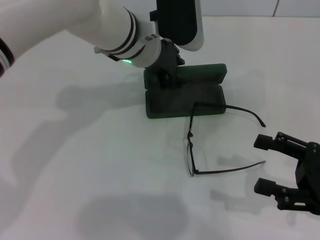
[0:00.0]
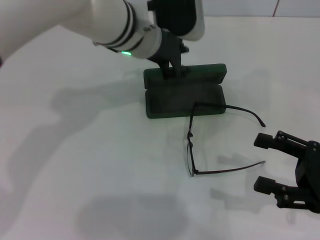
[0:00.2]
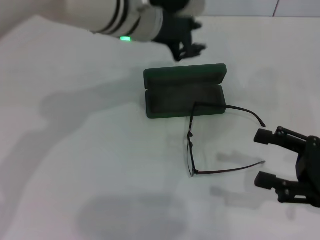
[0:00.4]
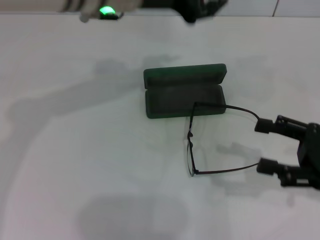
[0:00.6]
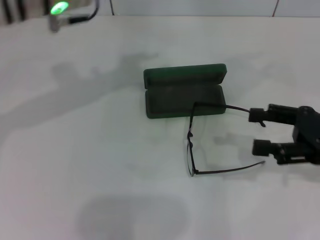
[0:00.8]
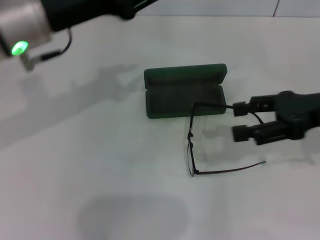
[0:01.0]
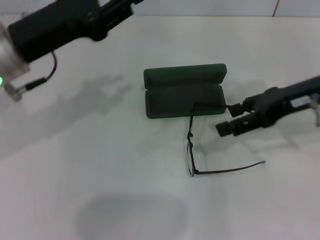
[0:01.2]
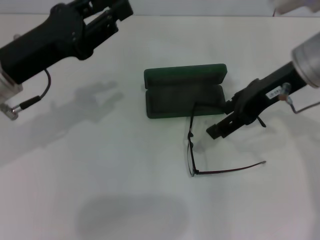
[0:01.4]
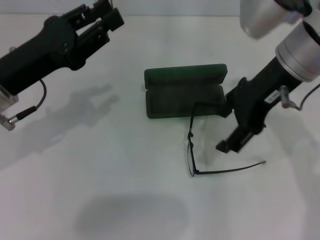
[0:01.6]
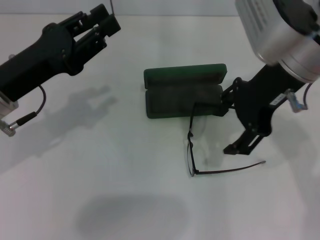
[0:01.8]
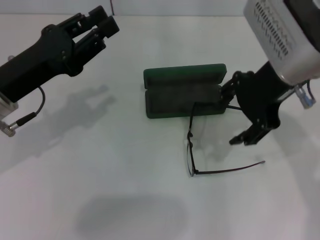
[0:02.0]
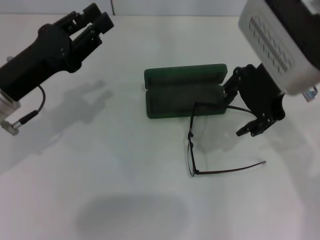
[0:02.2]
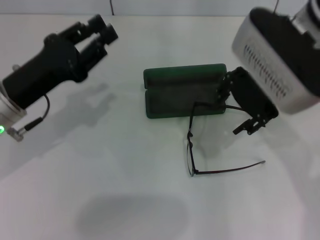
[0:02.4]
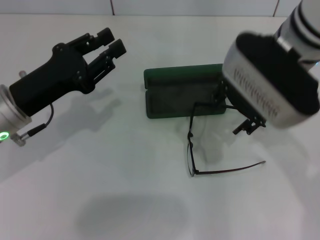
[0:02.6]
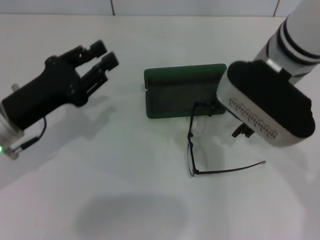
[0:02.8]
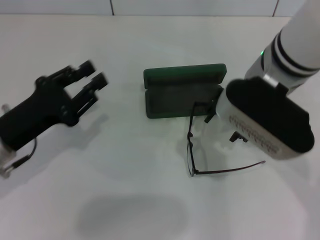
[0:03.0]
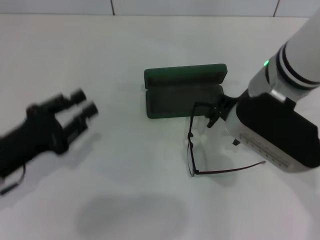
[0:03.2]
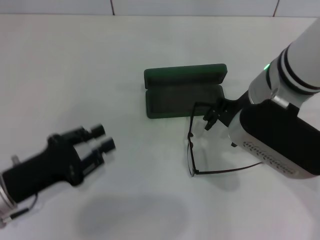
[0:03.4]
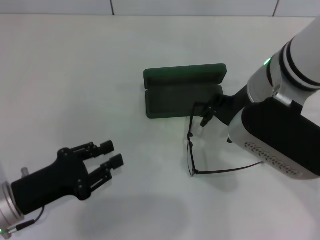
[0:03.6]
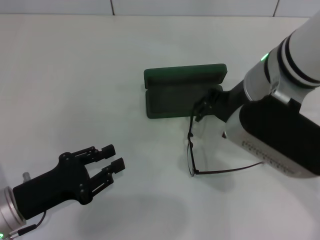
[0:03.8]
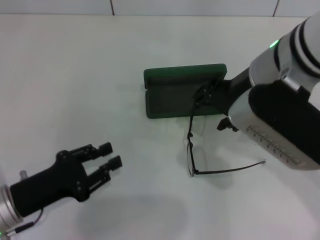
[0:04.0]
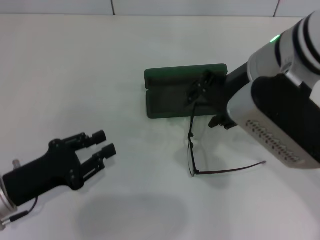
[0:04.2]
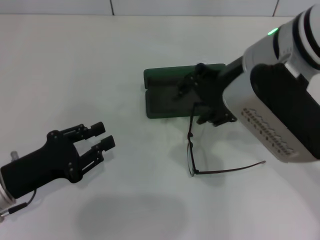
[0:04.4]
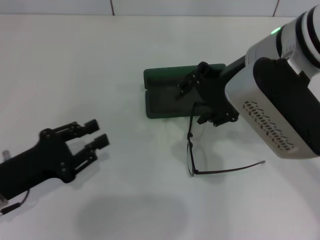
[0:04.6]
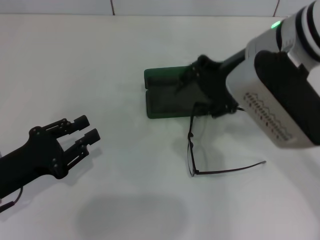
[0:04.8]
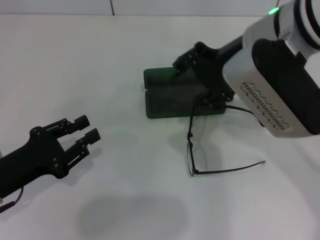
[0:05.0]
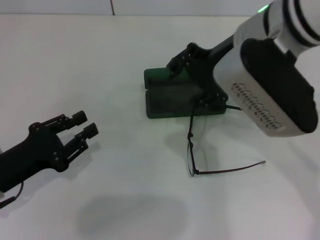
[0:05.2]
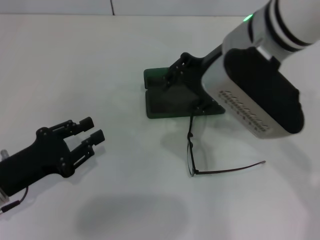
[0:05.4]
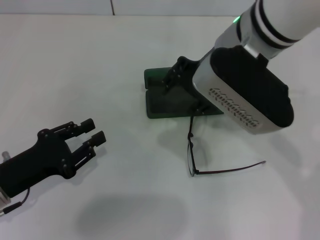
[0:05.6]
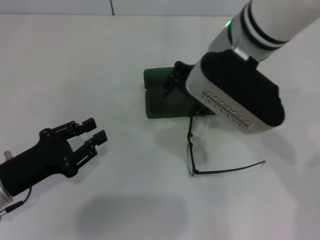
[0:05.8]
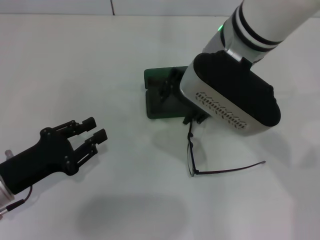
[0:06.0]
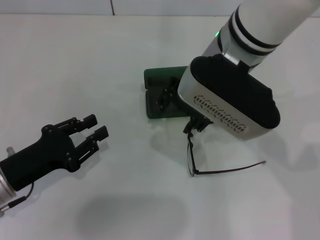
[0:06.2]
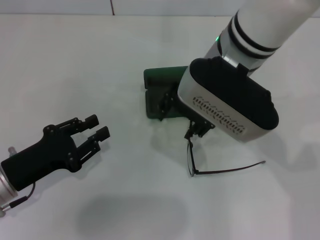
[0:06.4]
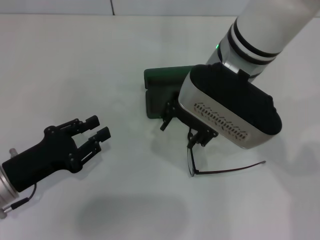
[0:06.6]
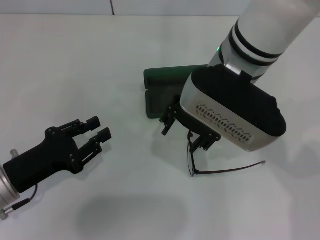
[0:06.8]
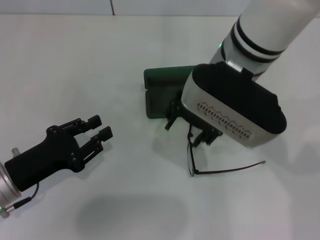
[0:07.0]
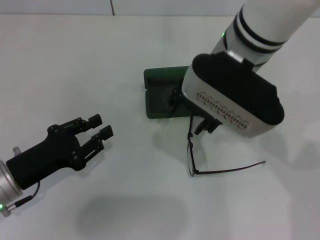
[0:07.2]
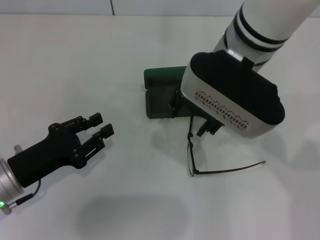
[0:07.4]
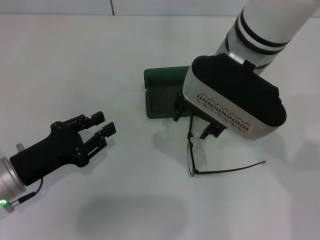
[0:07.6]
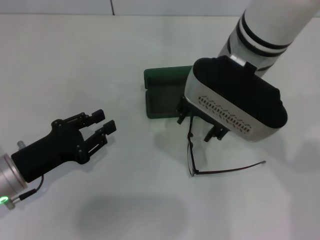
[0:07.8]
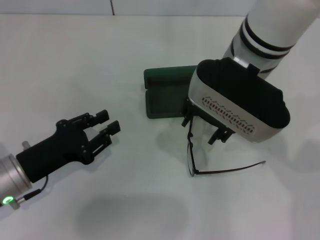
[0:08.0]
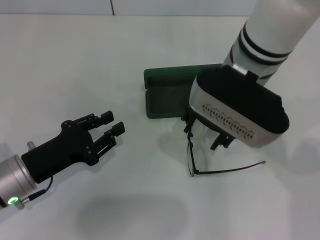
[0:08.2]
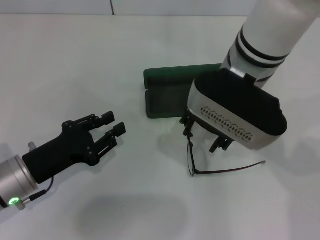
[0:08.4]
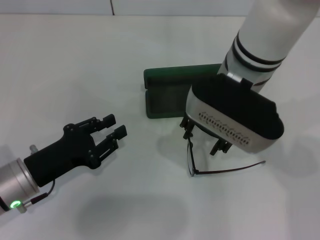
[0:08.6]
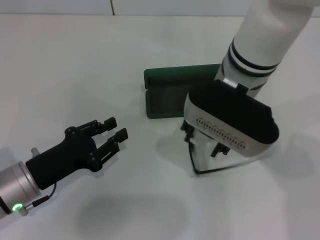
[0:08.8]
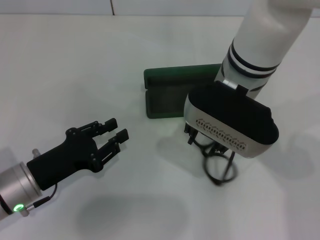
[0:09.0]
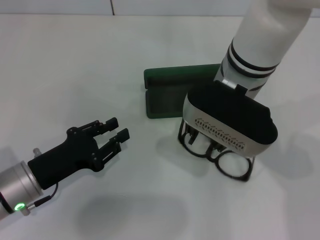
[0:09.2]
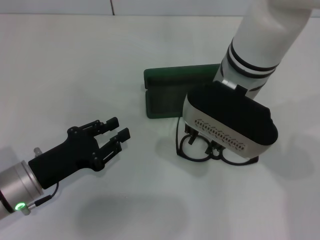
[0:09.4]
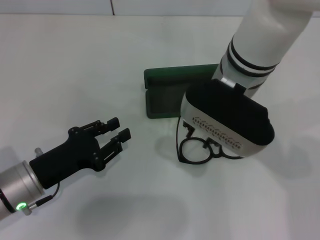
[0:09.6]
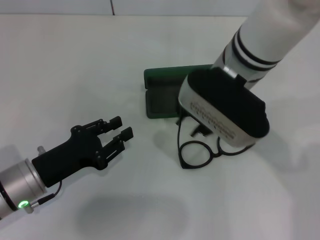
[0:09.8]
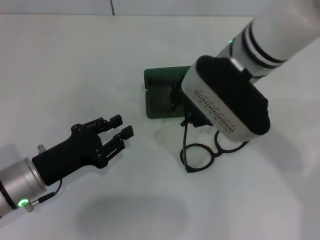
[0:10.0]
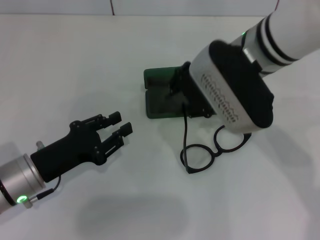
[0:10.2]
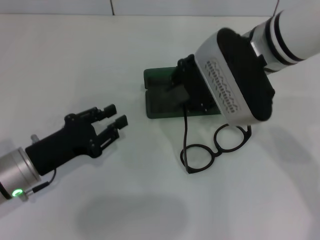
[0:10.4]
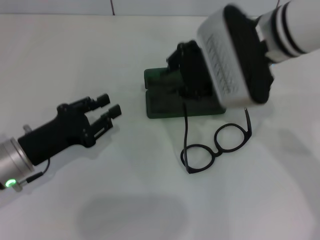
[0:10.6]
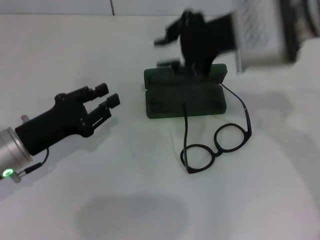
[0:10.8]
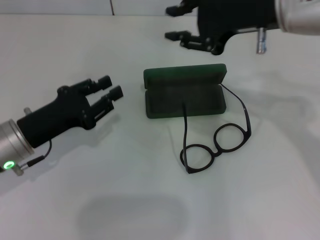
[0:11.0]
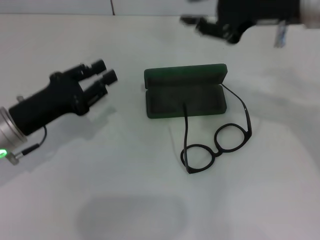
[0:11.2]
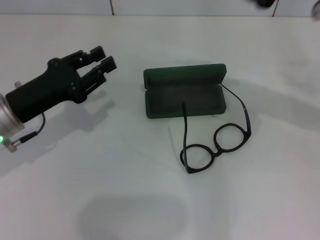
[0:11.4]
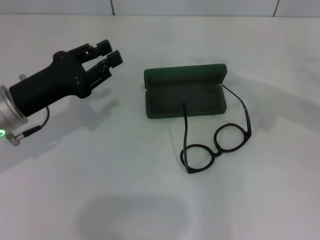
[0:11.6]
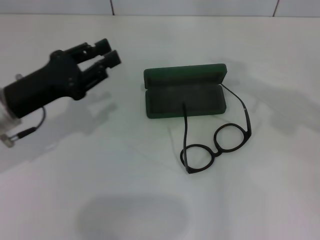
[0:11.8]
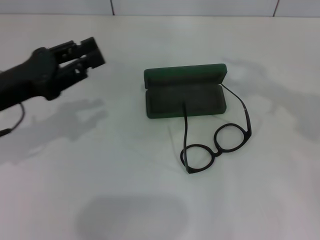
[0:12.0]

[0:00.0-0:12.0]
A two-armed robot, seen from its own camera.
0:00.0 to 0:01.6: The left gripper goes some 20 cm to the left and backward. Meanwhile the right gripper is displaced upward, to the left and forward by roughly 25 cm.
0:01.6 to 0:03.0: The right gripper changes place by about 5 cm, while the left gripper heads downward, covering some 5 cm.
0:03.0 to 0:04.4: The left gripper ends up some 5 cm from where it was.
0:04.4 to 0:06.0: The right gripper shifts by approximately 5 cm.
0:06.0 to 0:07.6: There are only small adjustments of the grippers.
0:10.4 to 0:12.0: The left gripper goes some 10 cm upward. The right gripper is displaced to the right by roughly 20 cm.

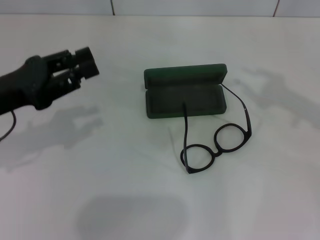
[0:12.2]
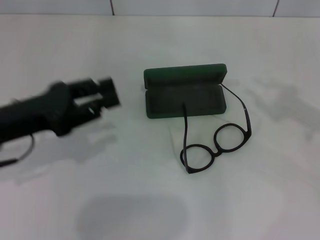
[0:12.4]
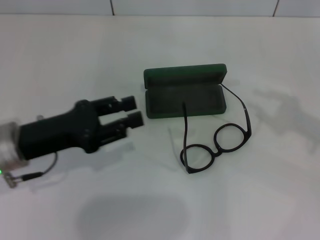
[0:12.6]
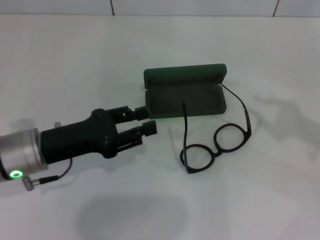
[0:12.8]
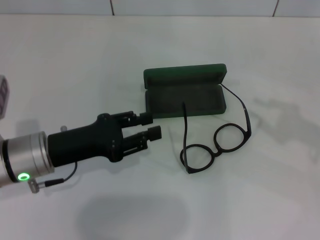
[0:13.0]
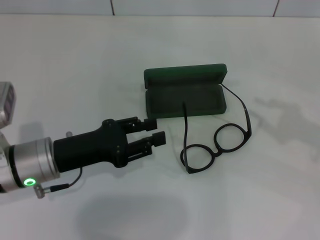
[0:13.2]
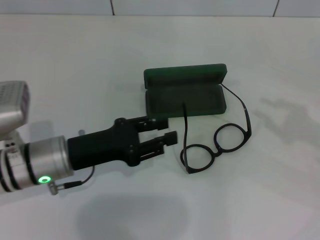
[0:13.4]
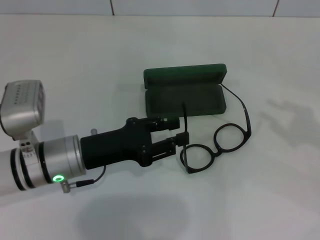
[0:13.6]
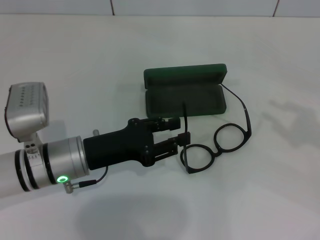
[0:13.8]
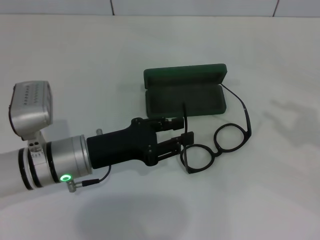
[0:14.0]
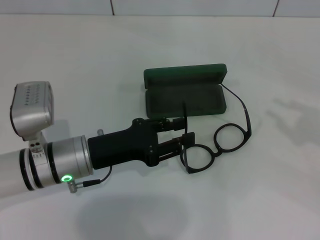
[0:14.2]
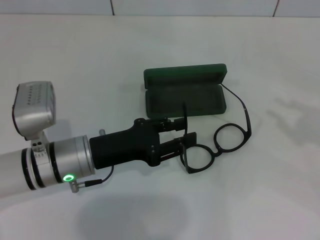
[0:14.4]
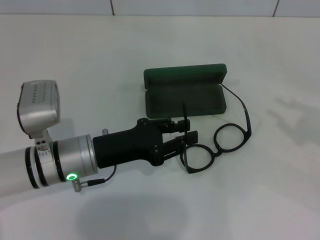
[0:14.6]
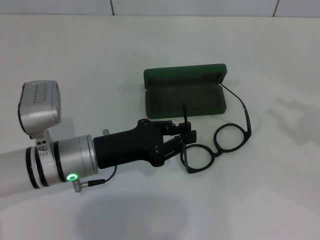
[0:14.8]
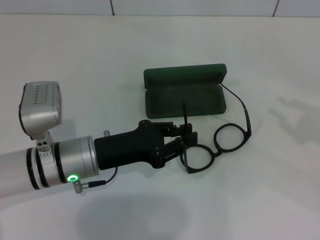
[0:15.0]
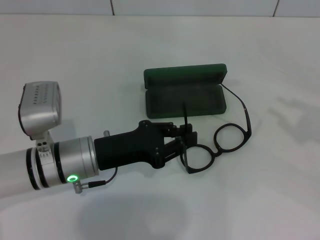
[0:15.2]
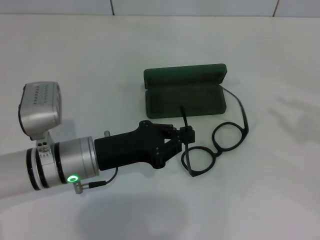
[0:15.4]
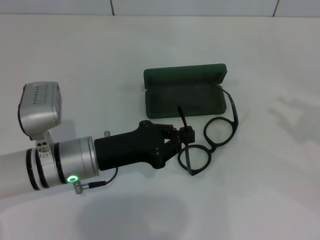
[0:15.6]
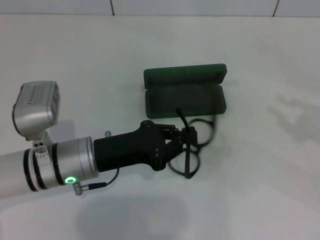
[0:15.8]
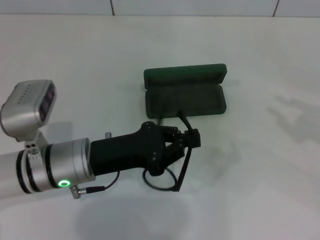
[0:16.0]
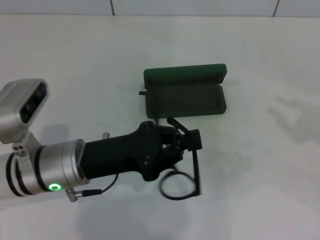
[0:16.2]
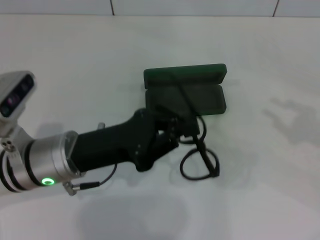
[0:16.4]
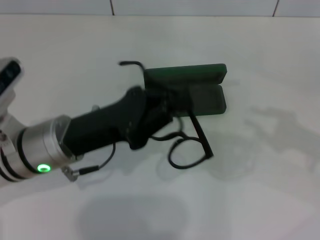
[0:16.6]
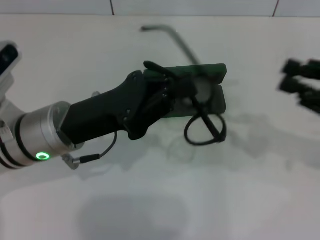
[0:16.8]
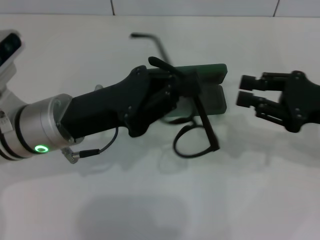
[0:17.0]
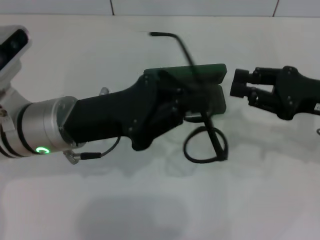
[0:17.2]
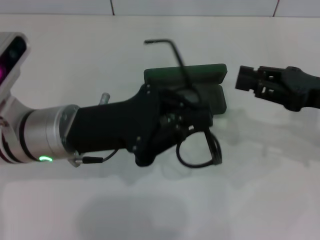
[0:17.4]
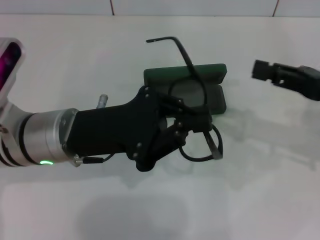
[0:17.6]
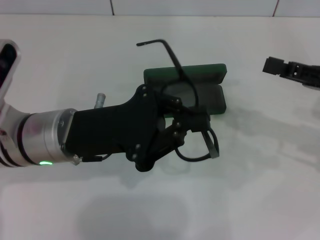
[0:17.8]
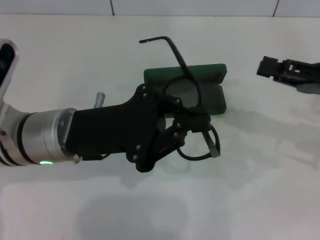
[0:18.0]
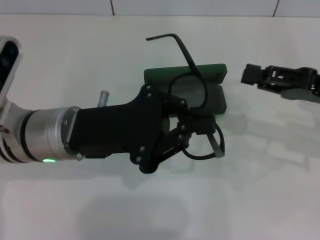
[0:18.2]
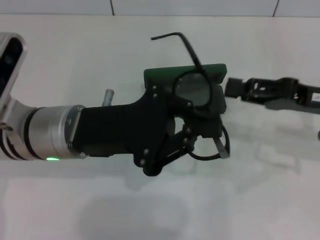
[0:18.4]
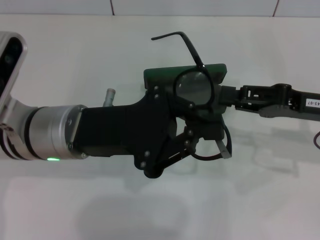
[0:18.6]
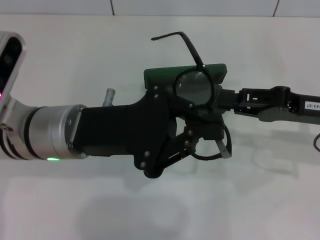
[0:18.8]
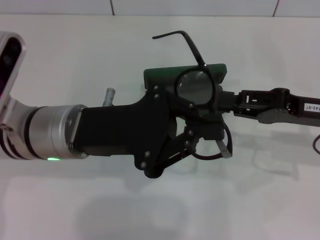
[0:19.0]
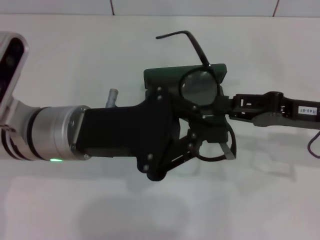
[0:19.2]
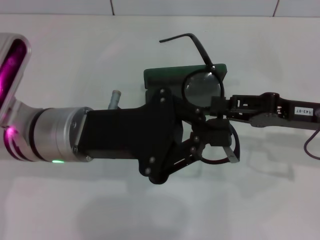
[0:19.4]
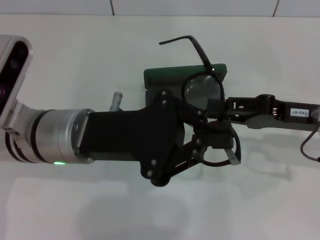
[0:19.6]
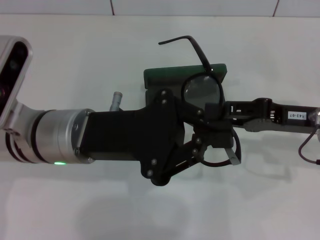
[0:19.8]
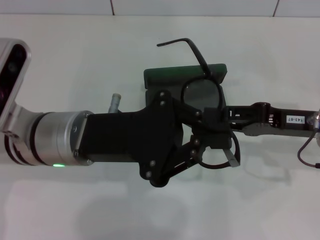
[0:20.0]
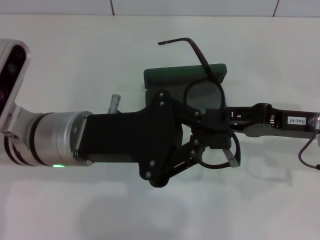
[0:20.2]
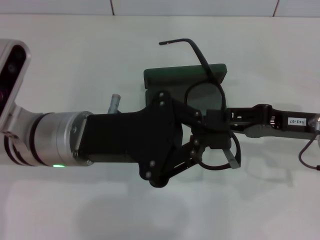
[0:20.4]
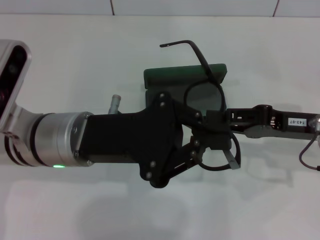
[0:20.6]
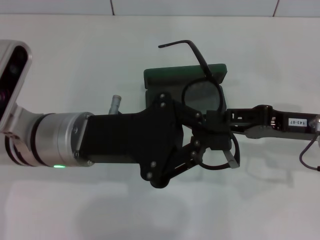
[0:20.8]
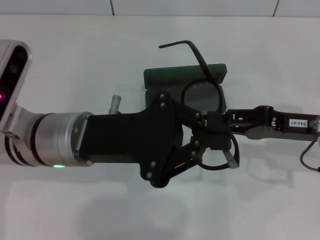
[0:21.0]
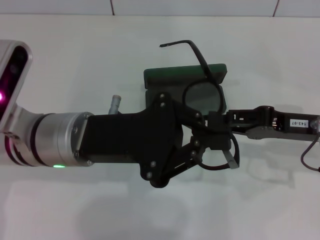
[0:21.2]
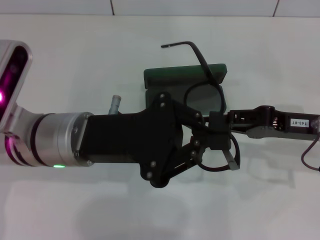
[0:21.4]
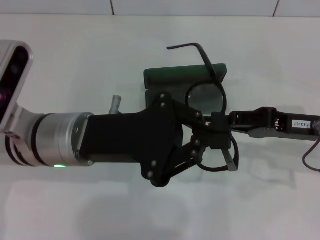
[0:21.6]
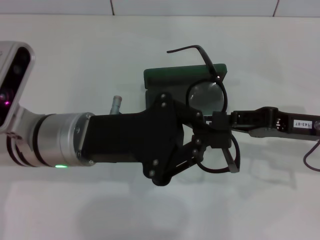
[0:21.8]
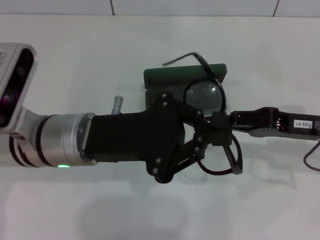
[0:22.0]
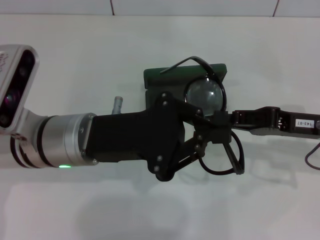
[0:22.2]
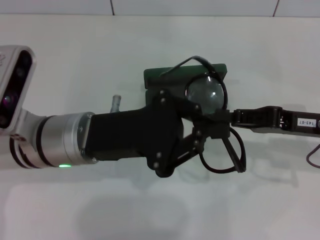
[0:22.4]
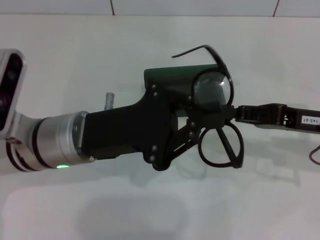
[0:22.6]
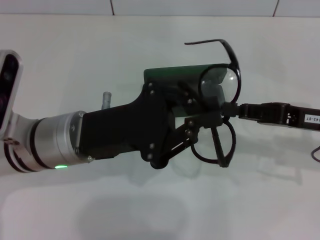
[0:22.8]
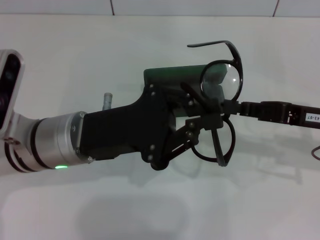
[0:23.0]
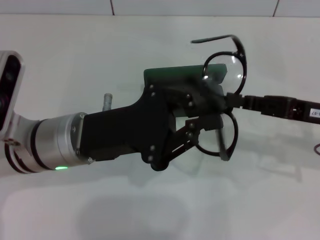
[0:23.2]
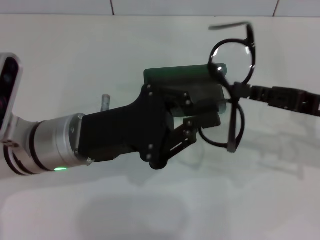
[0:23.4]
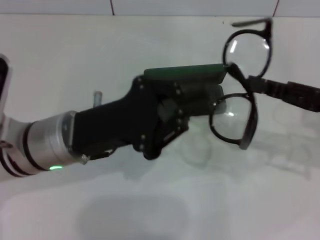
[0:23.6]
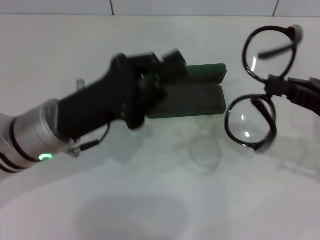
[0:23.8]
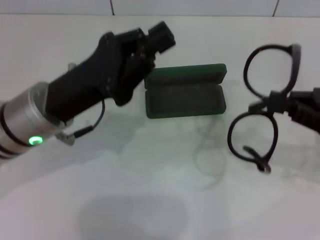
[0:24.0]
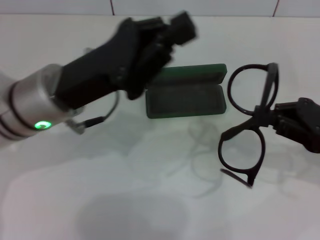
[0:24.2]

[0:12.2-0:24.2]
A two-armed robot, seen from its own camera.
Step, 0:12.2 to 0:22.4: Grab the eyeglass frame with your right hand.
0:12.2 to 0:13.8: The right gripper travels downward and backward by about 10 cm. The left gripper moves to the right and downward, some 15 cm.
0:13.8 to 0:15.2: The left gripper closes up.
0:15.2 to 0:16.6: The left gripper heads upward, covering approximately 5 cm.
0:16.6 to 0:18.2: The right gripper moves to the left and forward, approximately 10 cm.
0:18.2 to 0:19.8: The grippers move only a little.
0:19.8 to 0:21.2: Both grippers stay put.
0:21.2 to 0:22.6: The grippers make only small movements.
